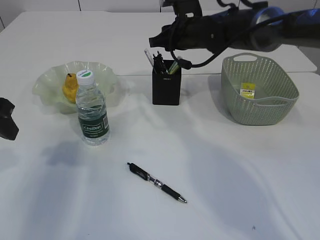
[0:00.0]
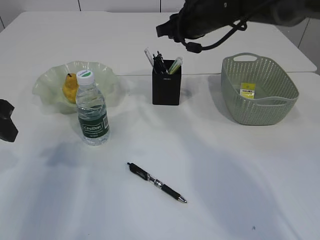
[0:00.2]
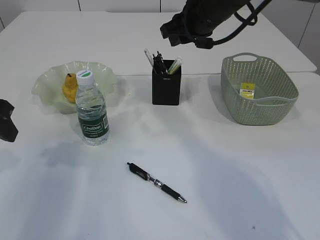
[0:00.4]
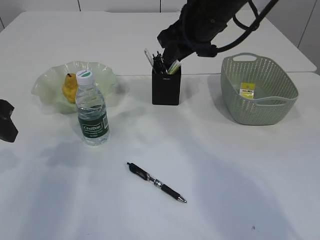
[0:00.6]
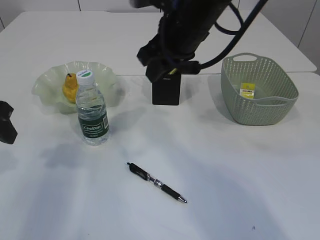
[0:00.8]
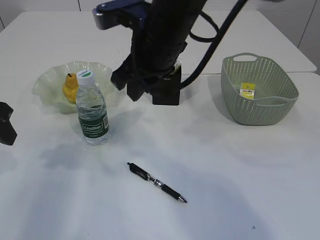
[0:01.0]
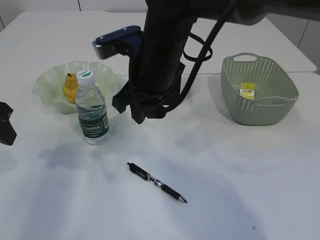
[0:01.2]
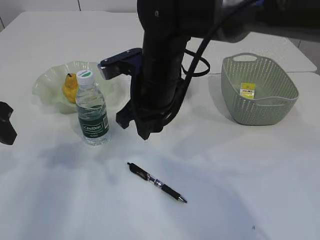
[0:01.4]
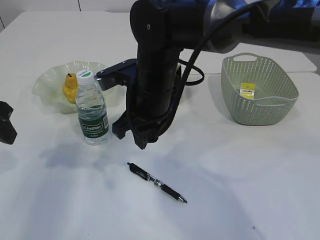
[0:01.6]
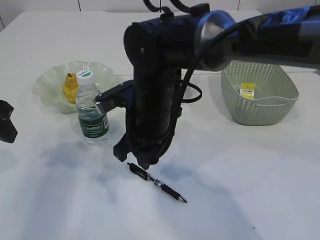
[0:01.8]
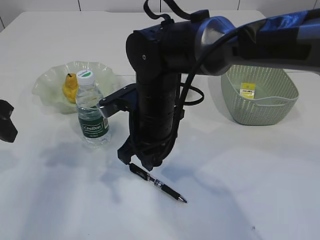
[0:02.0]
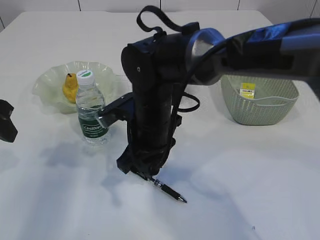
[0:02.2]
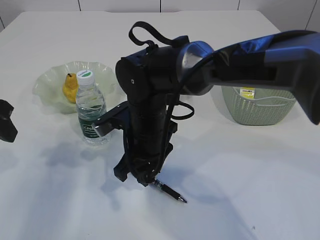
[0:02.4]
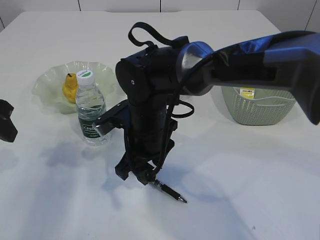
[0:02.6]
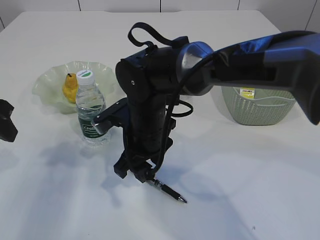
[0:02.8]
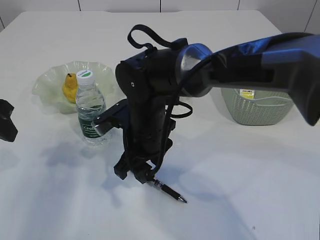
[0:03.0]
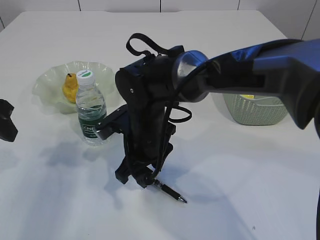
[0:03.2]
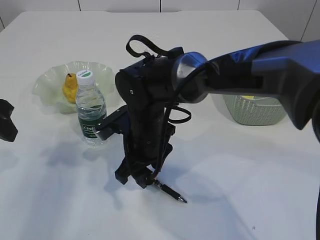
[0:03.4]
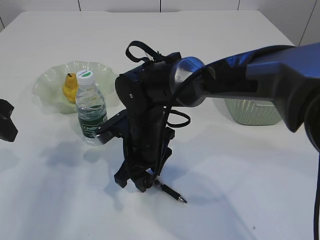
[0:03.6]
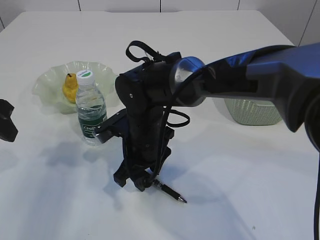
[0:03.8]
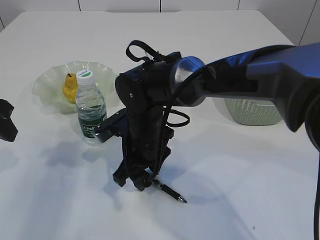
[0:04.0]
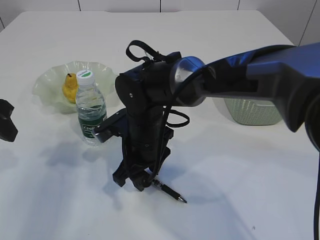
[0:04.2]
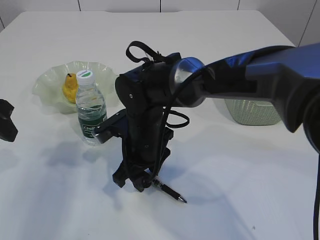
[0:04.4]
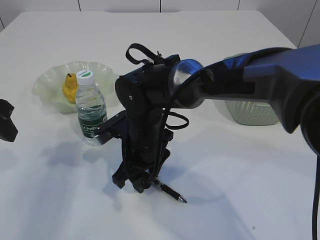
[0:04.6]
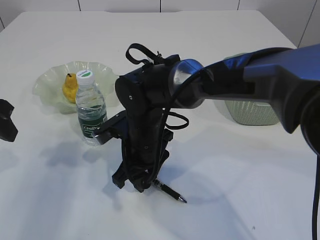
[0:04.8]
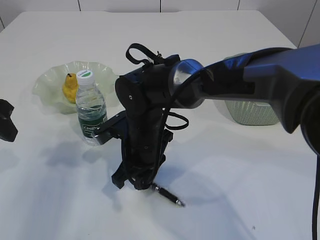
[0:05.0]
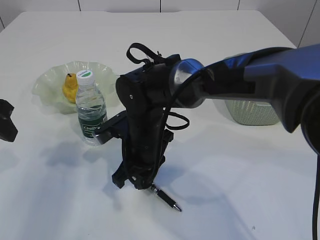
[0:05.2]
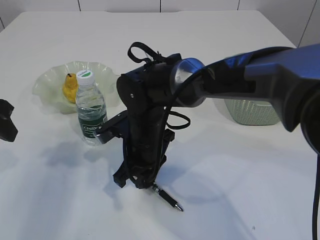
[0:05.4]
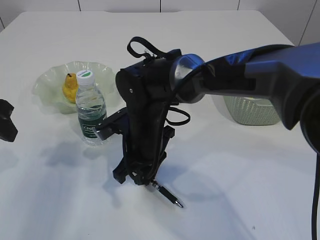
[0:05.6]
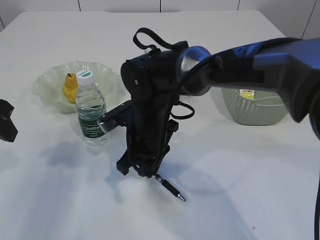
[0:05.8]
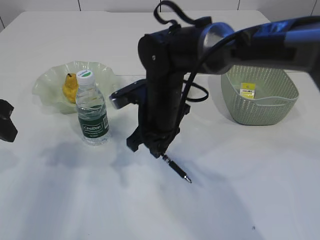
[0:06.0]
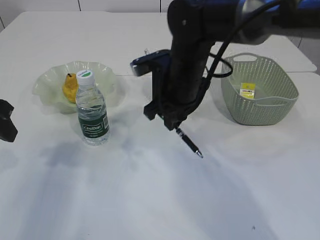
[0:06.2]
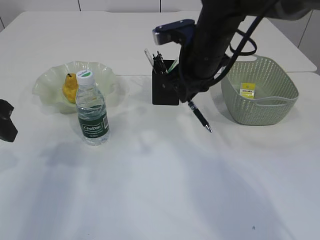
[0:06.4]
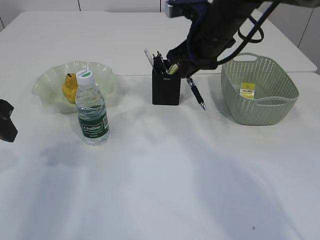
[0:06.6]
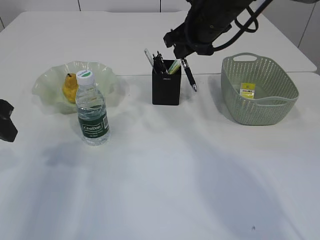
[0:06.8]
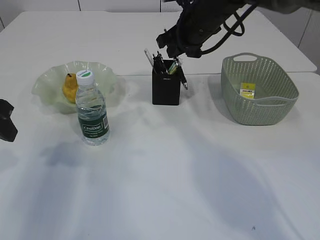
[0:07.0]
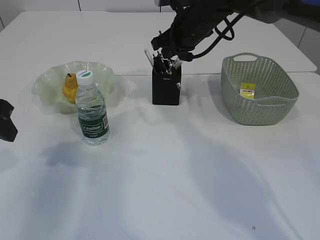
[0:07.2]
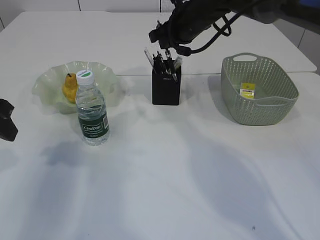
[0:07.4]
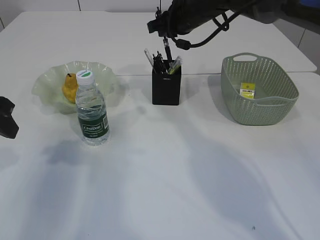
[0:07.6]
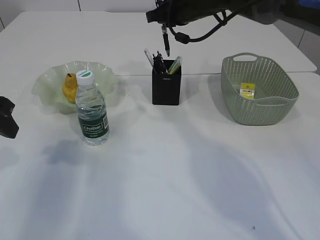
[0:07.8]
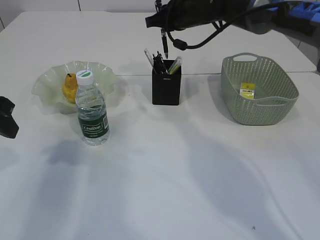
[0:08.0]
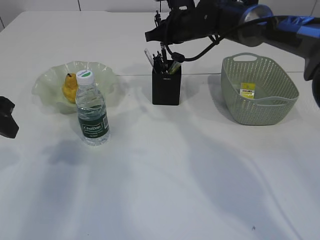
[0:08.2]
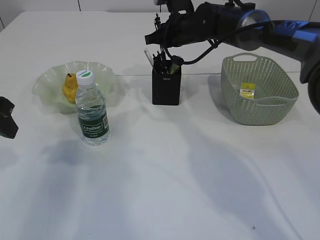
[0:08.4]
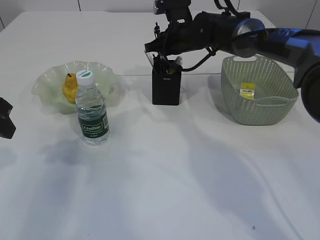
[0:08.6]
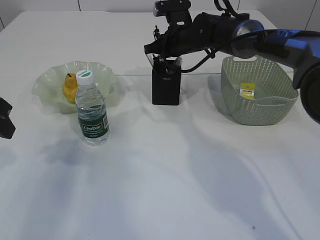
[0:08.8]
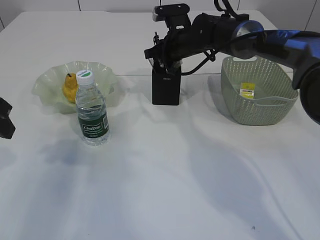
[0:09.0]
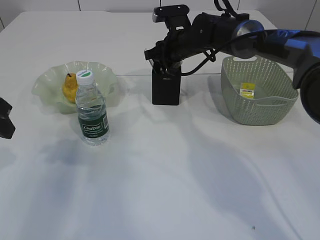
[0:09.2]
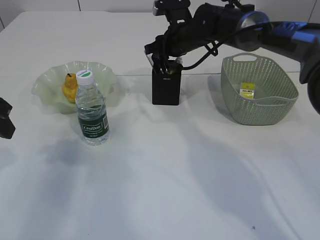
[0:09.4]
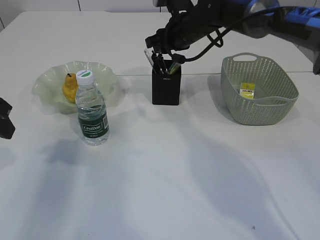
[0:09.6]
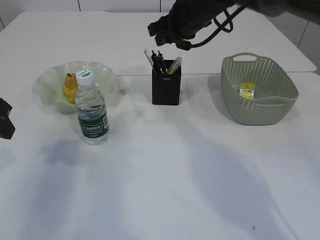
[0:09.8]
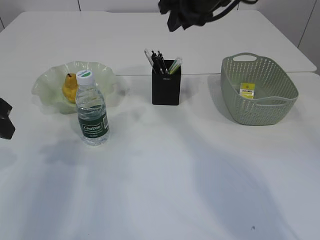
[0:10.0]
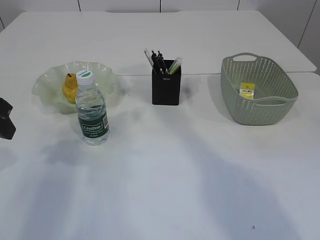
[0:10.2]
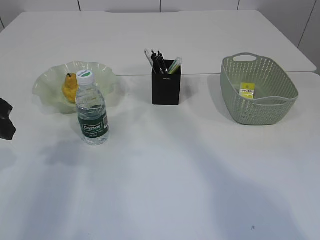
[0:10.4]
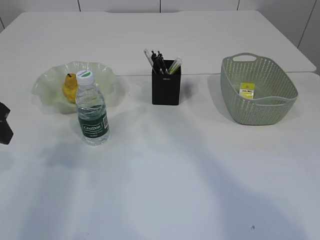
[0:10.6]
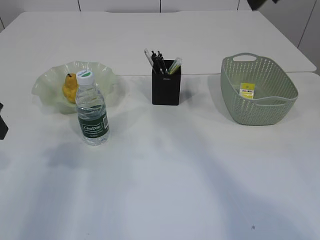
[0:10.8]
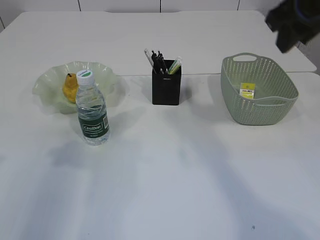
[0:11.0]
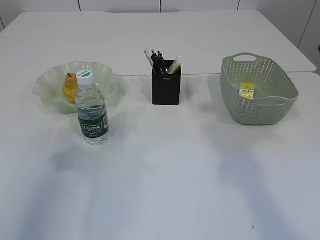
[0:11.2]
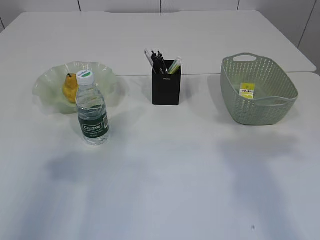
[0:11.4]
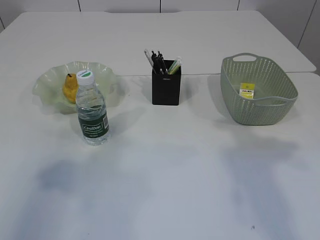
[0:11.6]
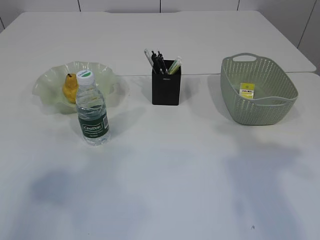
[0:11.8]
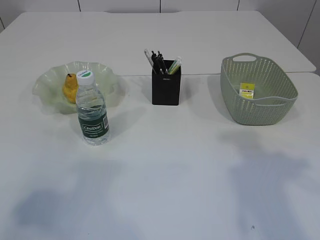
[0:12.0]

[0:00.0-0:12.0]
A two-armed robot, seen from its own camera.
Step, 0:01.4 to 0:05.8: Pick up the pen with right arm.
Step, 0:06.0 to 0:09.8: Place the pen into the pen holder.
0:00.0 to 0:01.6: The right gripper goes about 20 cm backward and to the left.
0:01.6 to 0:03.0: The right gripper moves downward, about 5 cm.
0:03.0 to 0:04.4: The grippers make only small movements.
0:04.4 to 0:06.0: The right gripper ends up some 5 cm from where it was, and closes.
0:06.0 to 0:07.6: The right gripper shifts about 20 cm forward, upward and to the right.
0:07.6 to 0:09.0: The right gripper goes about 10 cm downward.
0:09.0 to 0:10.4: The right gripper is displaced upward and backward by roughly 30 cm.
0:10.4 to 0:12.0: The left gripper is displaced backward and upward by some 20 cm. Meanwhile the right gripper travels backward, to the right and downward by approximately 25 cm.

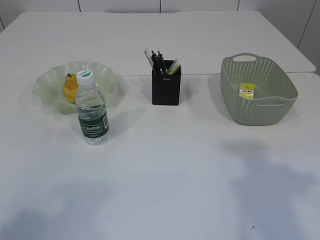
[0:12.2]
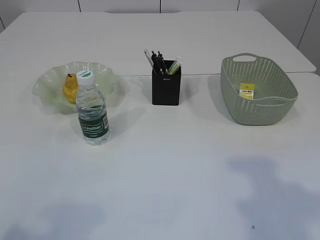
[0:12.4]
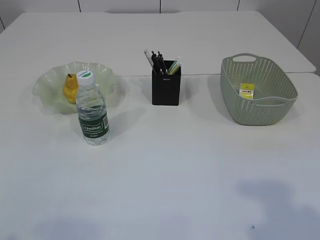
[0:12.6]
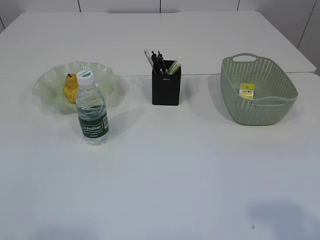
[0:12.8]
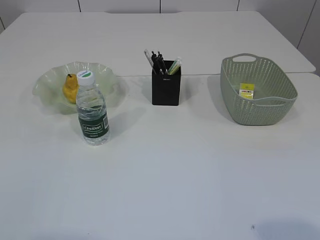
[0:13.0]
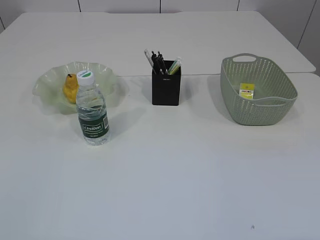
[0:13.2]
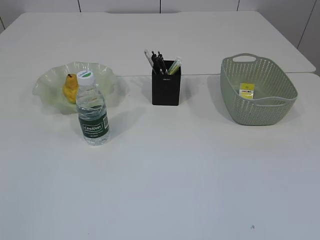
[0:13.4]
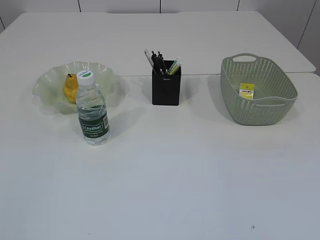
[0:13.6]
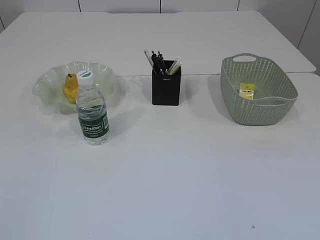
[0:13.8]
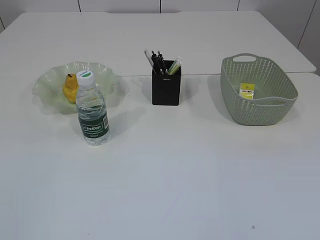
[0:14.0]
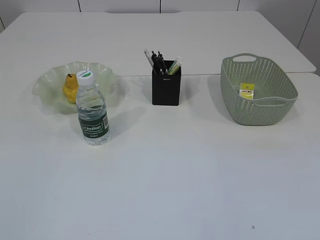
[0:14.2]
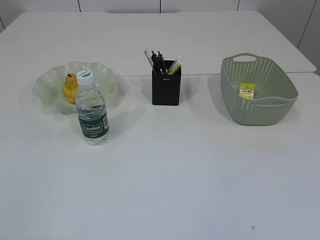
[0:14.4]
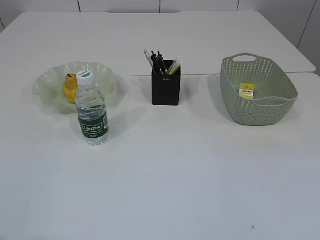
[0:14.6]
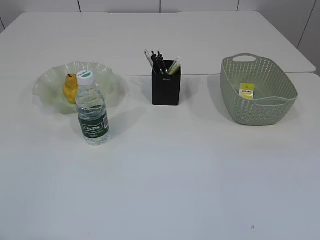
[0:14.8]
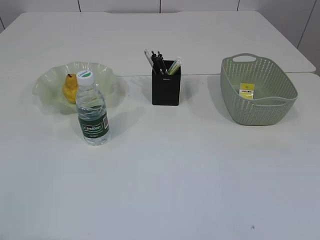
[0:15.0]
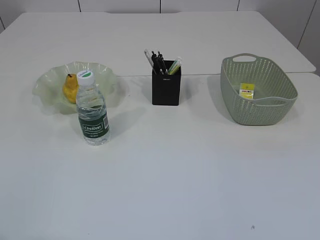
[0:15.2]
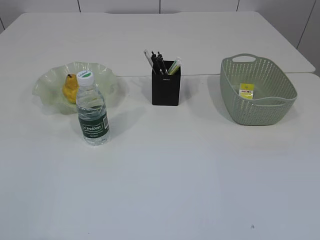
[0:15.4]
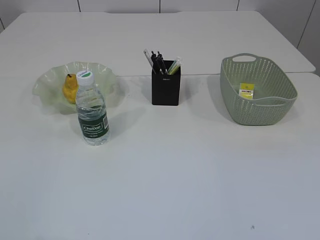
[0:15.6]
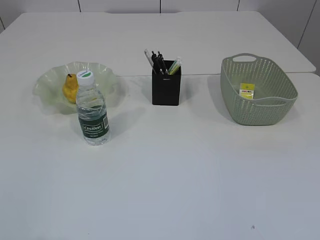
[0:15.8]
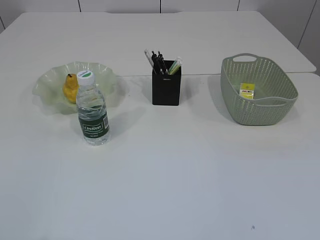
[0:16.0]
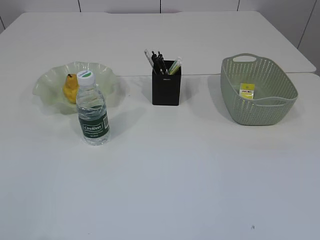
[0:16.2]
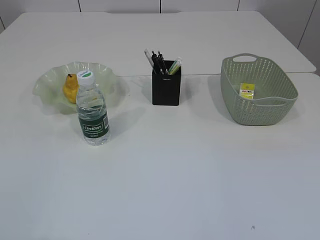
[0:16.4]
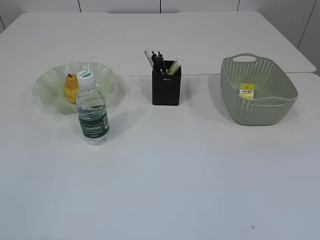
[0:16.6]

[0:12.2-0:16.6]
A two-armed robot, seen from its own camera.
0:12.2 to 0:13.6: The left gripper goes approximately 10 cm backward and downward.

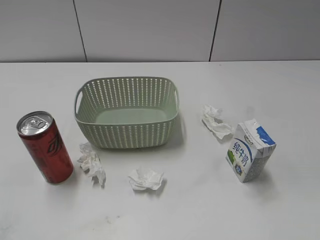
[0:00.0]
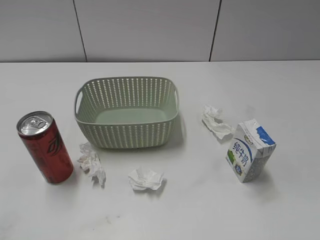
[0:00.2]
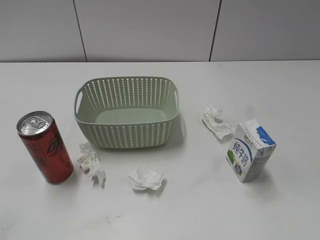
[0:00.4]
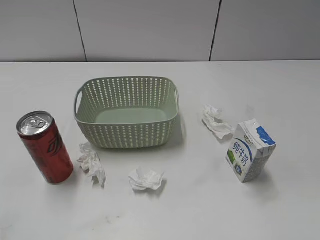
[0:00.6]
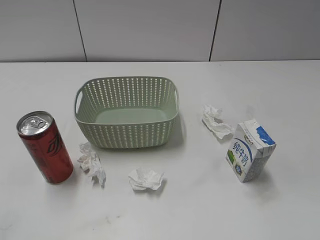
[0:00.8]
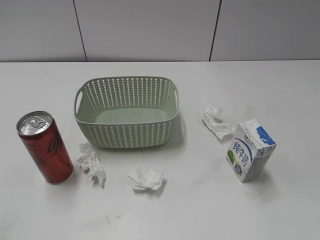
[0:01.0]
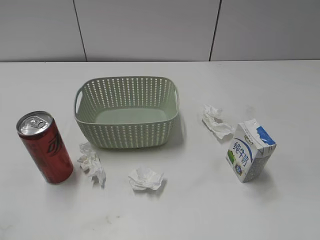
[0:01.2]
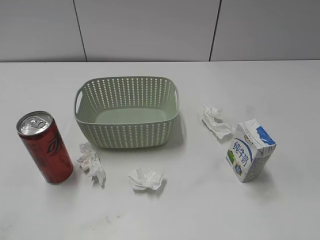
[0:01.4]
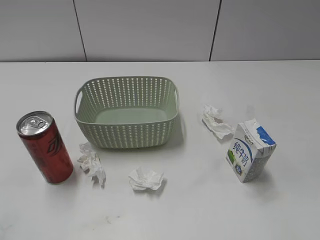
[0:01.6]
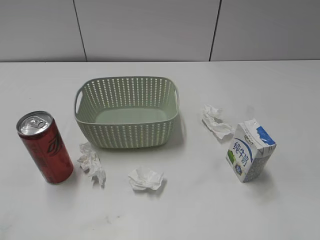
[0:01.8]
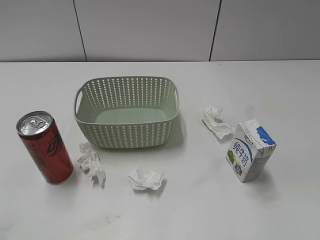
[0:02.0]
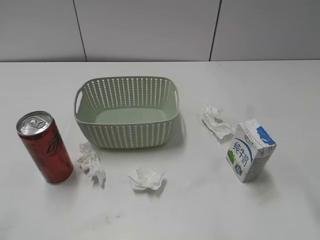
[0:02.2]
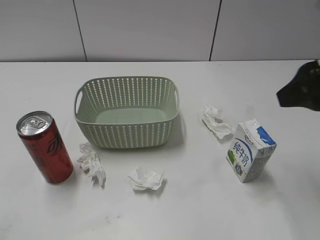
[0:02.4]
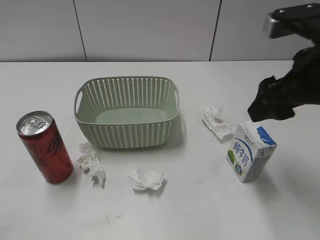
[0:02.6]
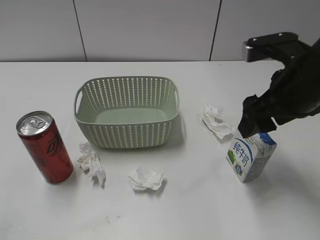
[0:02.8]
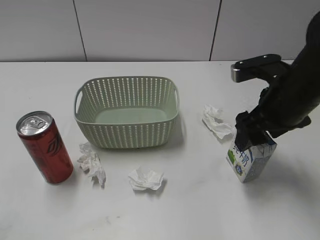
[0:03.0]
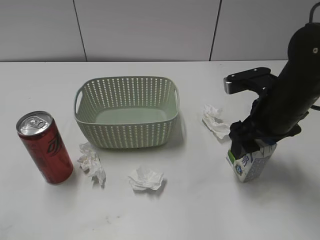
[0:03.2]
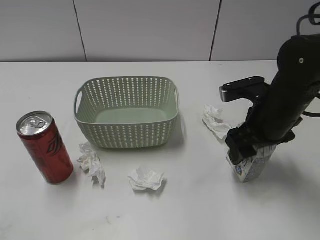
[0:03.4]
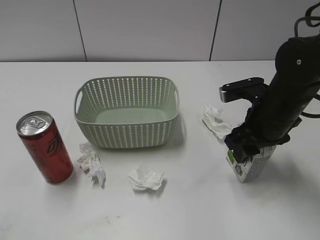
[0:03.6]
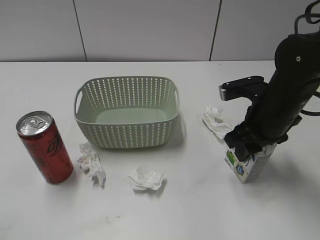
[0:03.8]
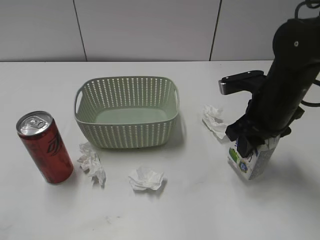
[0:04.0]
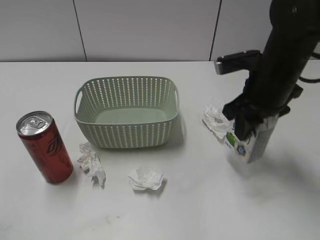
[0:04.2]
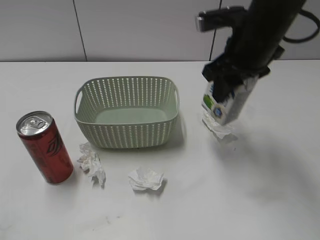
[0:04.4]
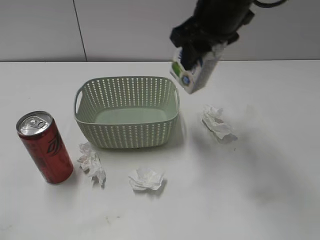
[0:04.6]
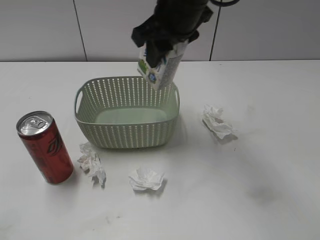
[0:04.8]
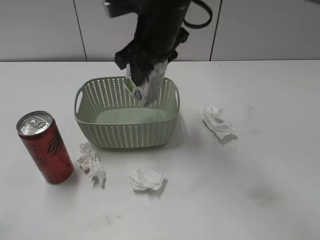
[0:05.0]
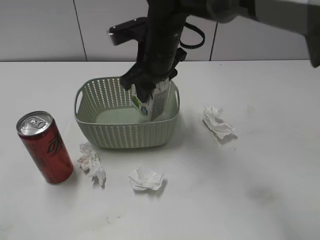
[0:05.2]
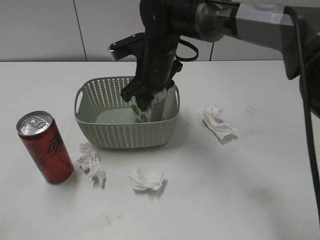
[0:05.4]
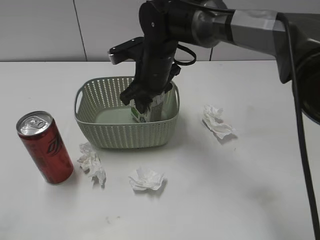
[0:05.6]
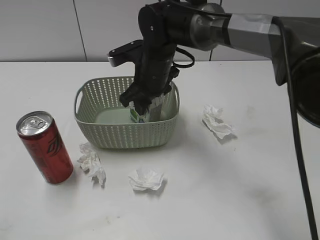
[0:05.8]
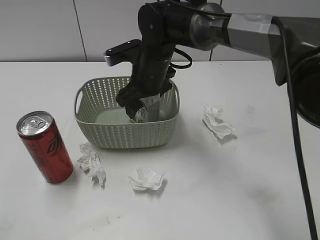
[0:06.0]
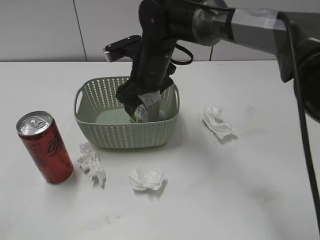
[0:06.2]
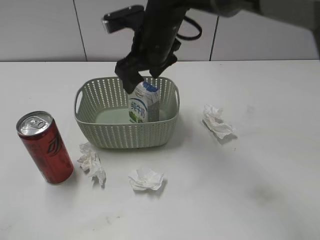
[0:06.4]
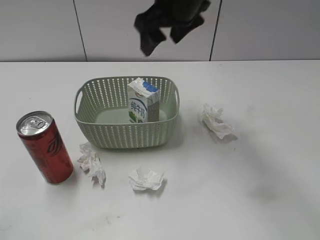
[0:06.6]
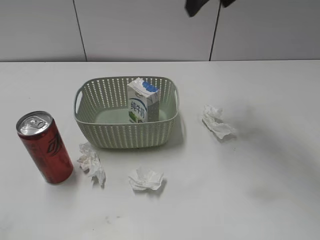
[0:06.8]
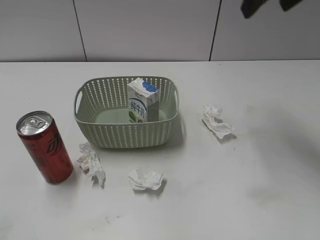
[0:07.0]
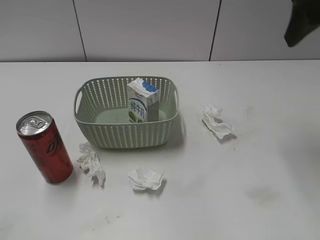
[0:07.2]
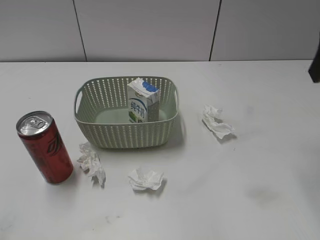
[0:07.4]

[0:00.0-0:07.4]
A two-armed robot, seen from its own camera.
Step, 0:02.4 to 0:03.6: Grasp the milk with right gripper.
Step, 0:03.8 to 0:06.4: Place the milk in the basket with right gripper.
0:01.4 to 0:03.0: The right gripper travels forward and to the left by approximately 30 cm.
0:03.0 to 0:04.4: The right gripper goes approximately 5 cm forward and to the left, and closes up.
0:04.4 to 0:06.0: The right gripper is displaced to the left, downward and forward by some 20 cm, and opens its fingers.
0:06.0 to 0:07.4: The right gripper moves to the right, upward and backward, roughly 35 cm.
